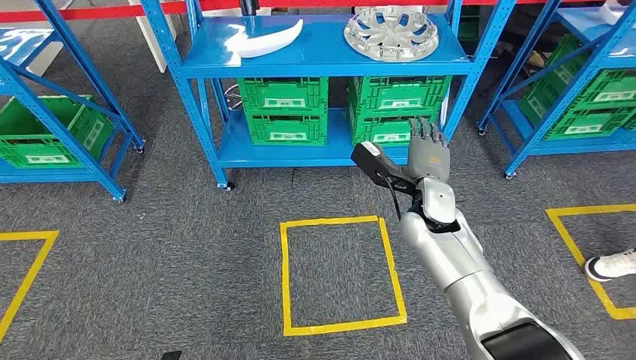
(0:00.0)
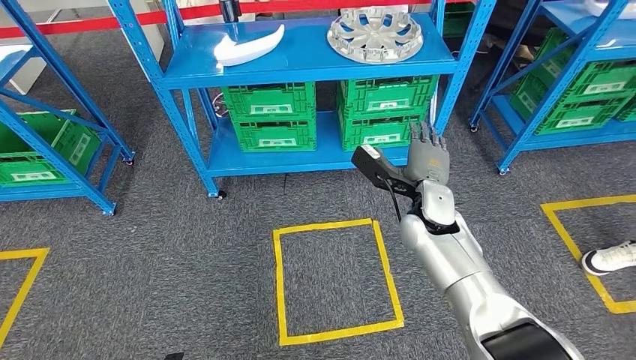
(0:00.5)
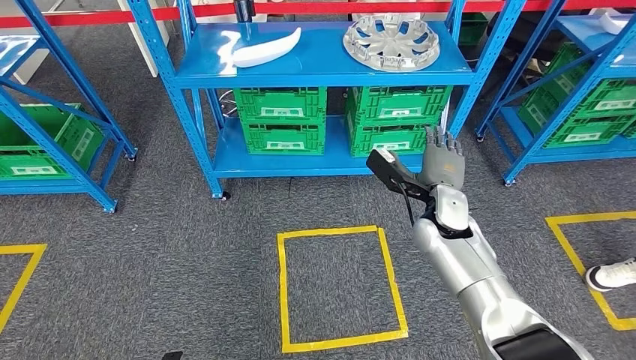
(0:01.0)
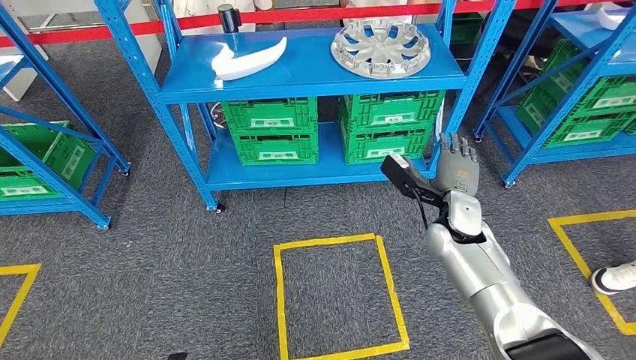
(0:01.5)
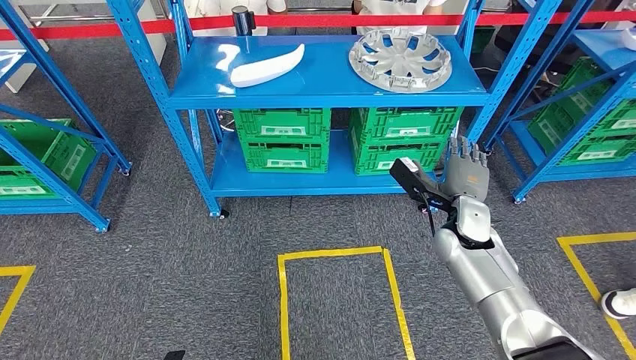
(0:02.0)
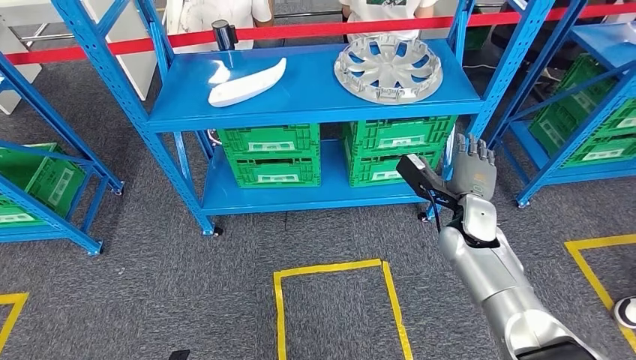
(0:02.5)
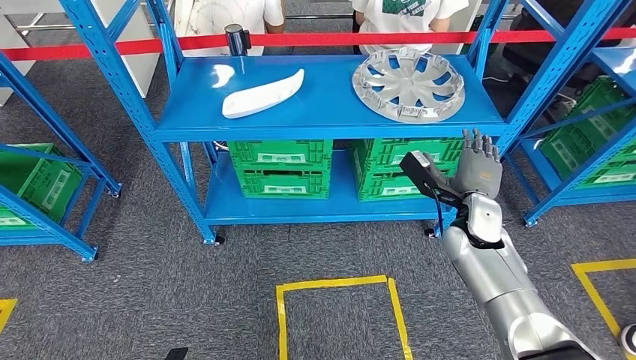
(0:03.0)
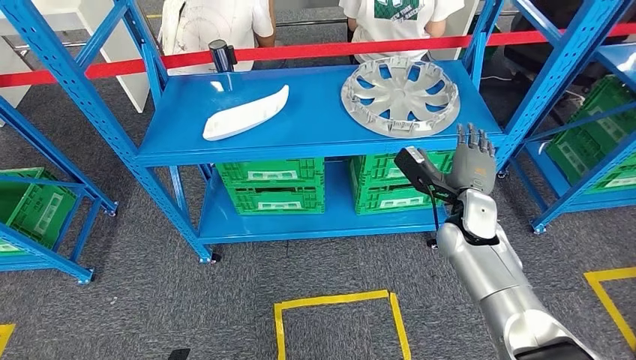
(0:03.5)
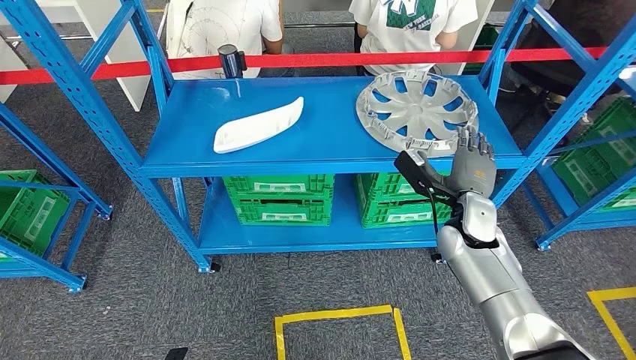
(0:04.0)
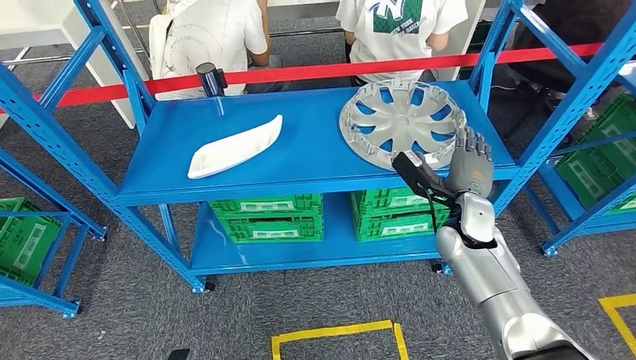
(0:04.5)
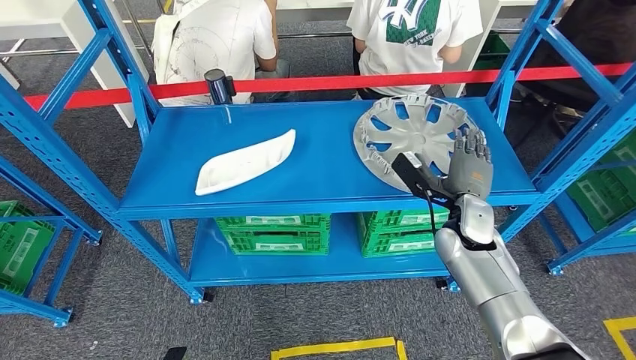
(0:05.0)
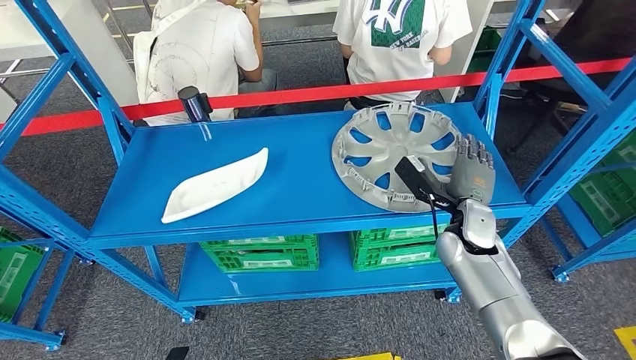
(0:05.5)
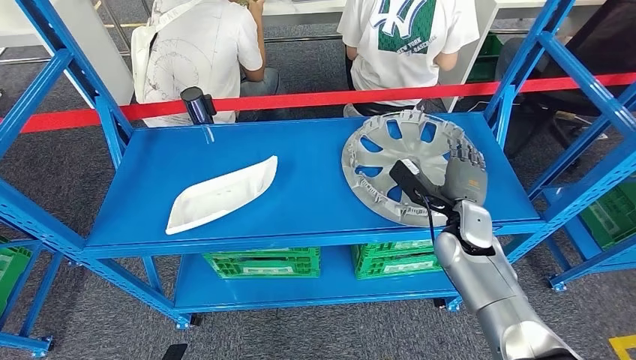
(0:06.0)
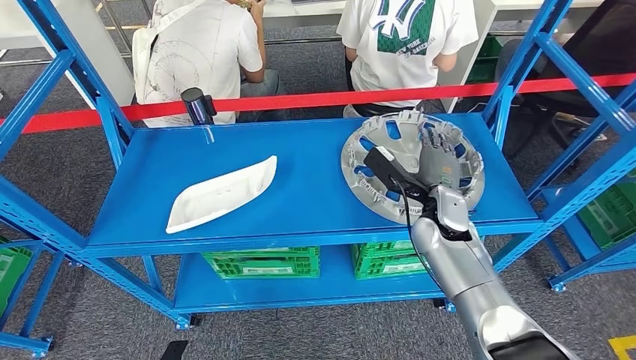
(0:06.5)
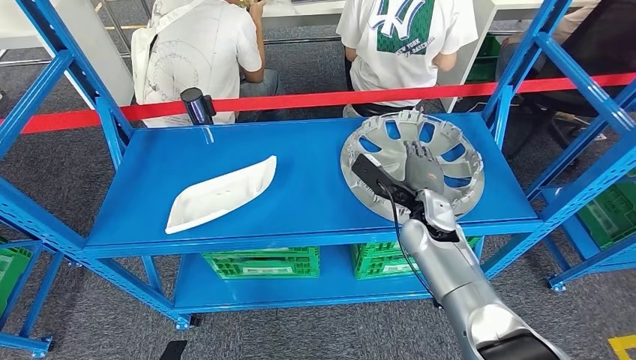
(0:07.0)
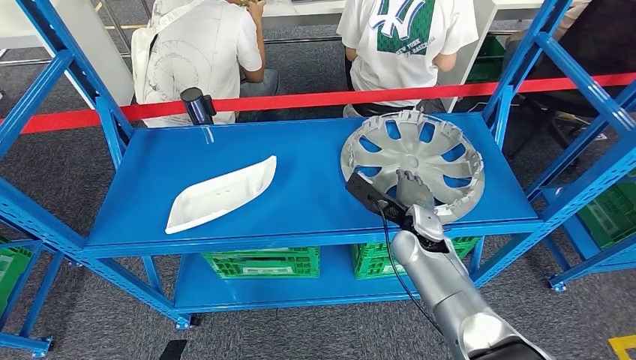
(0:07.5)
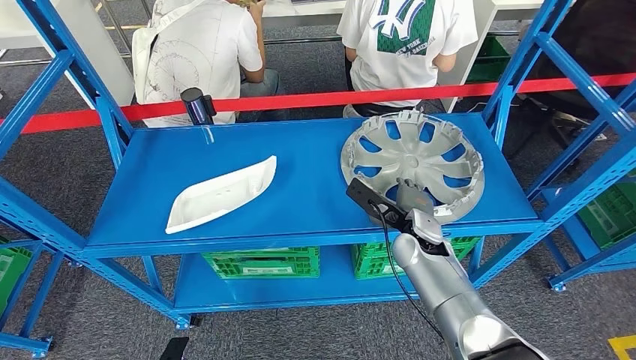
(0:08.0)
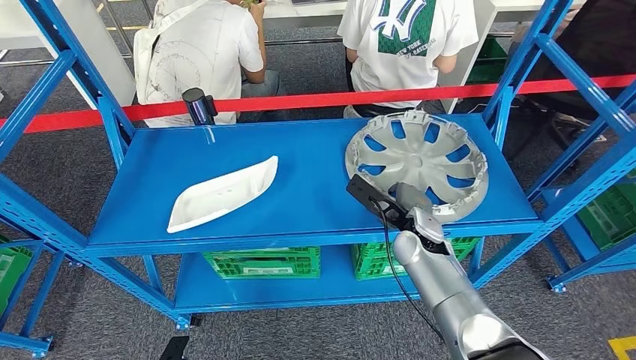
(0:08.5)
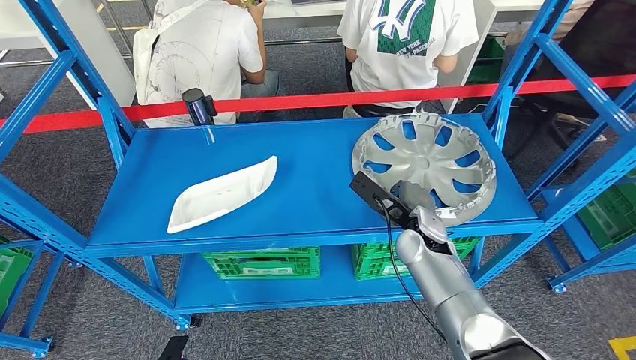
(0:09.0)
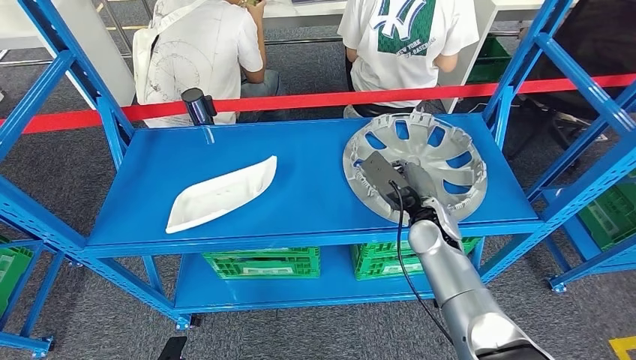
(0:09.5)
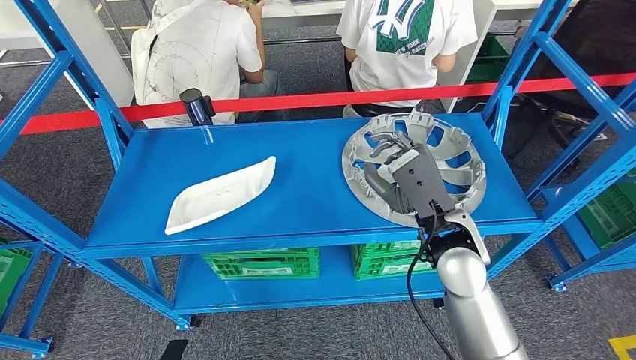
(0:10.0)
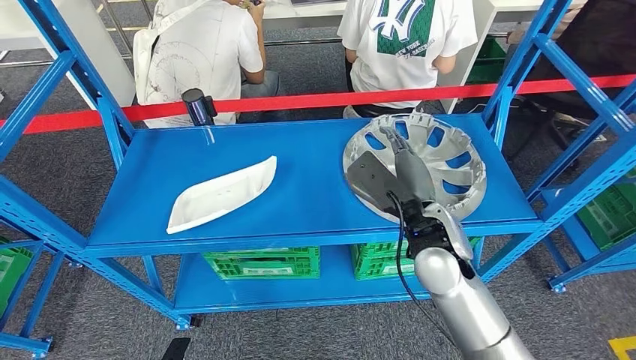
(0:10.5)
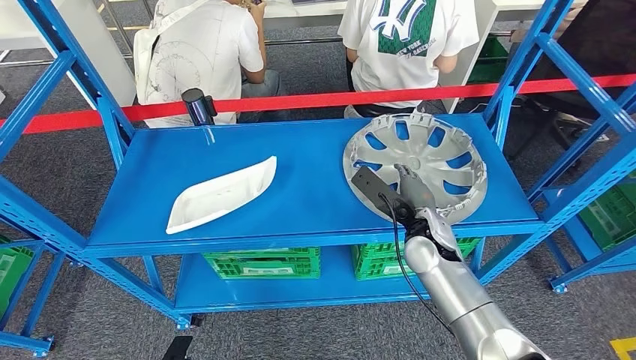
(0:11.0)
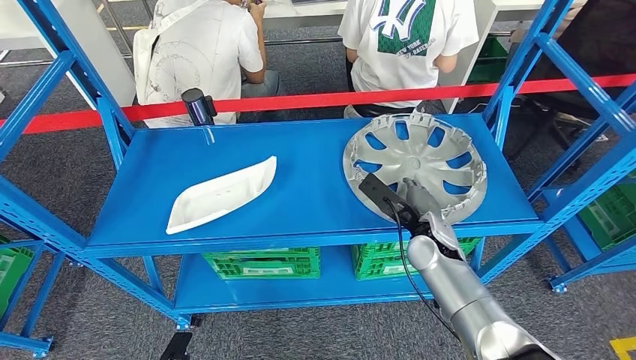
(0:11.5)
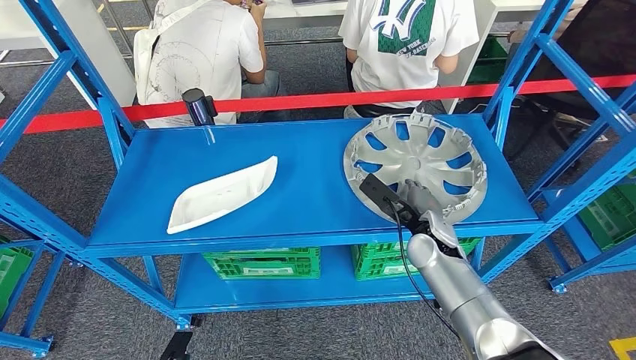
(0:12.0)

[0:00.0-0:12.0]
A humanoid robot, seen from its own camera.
0:06.0 to 0:08.0: The right hand is displaced to the left by roughly 10 cm.
0:08.0 to 0:10.0: The right hand shifts roughly 10 cm upward.
0:10.0 to 0:12.0: The right hand heads downward, covering about 10 cm.

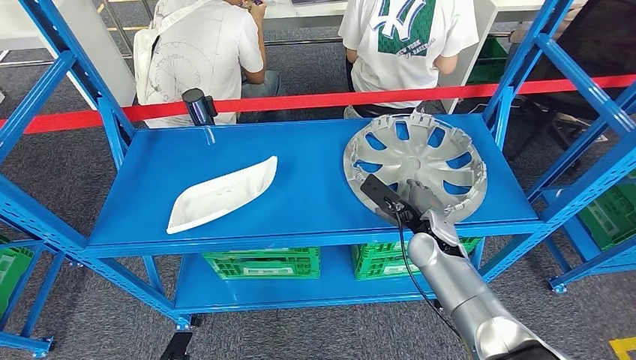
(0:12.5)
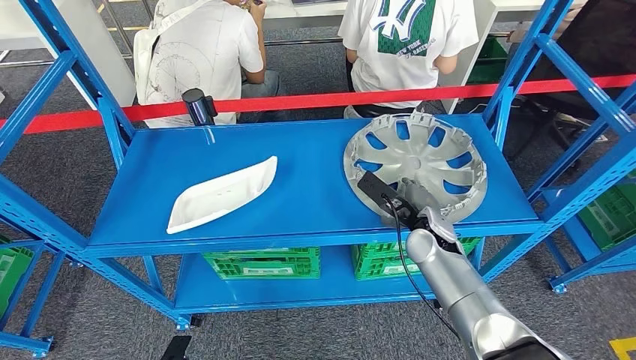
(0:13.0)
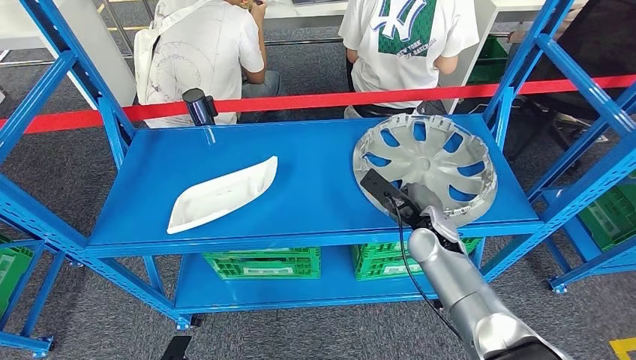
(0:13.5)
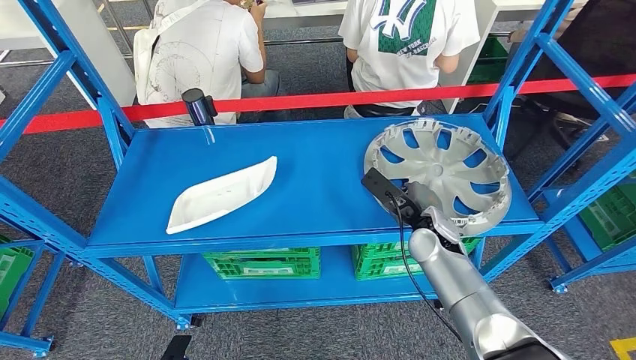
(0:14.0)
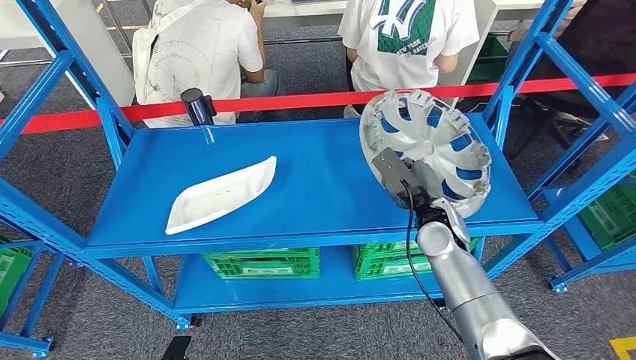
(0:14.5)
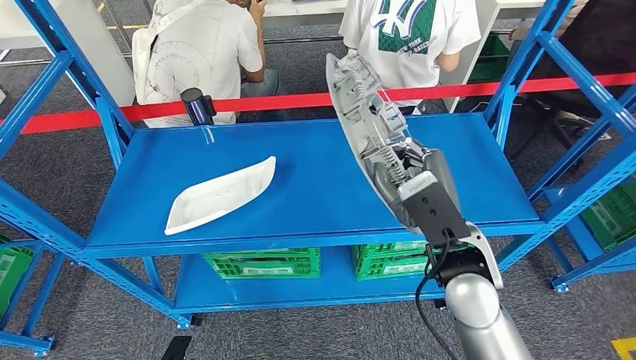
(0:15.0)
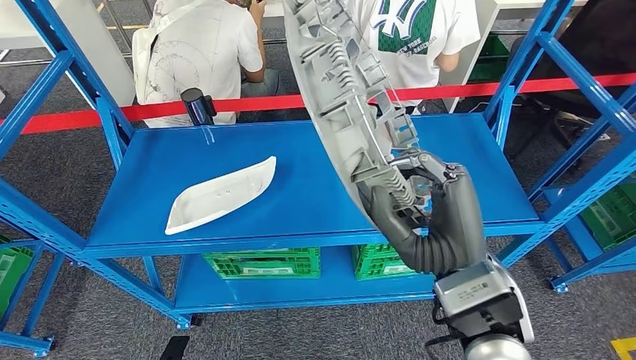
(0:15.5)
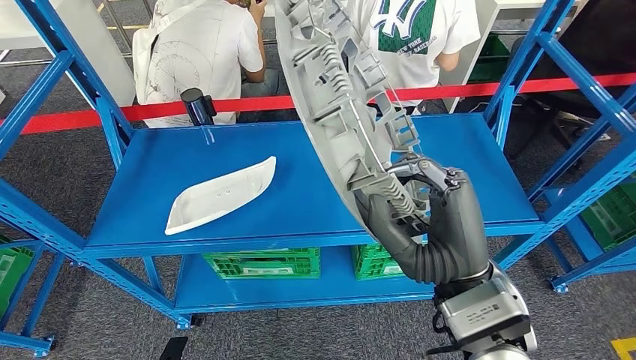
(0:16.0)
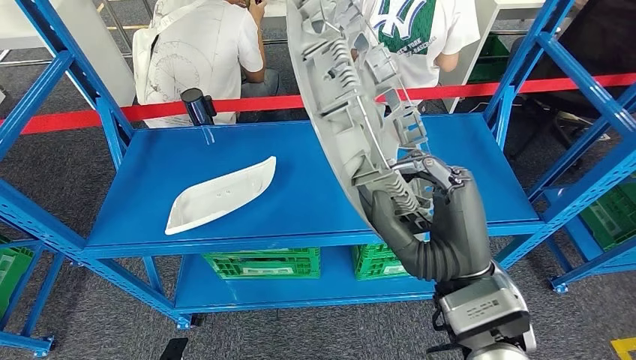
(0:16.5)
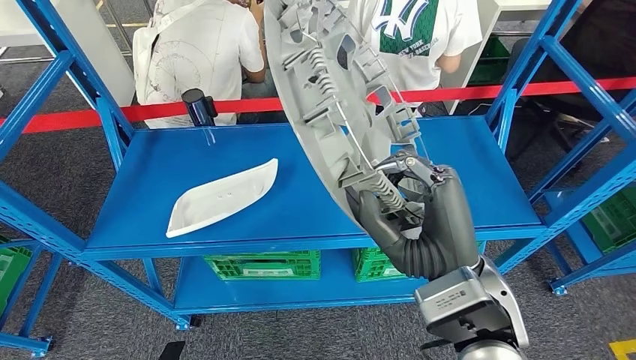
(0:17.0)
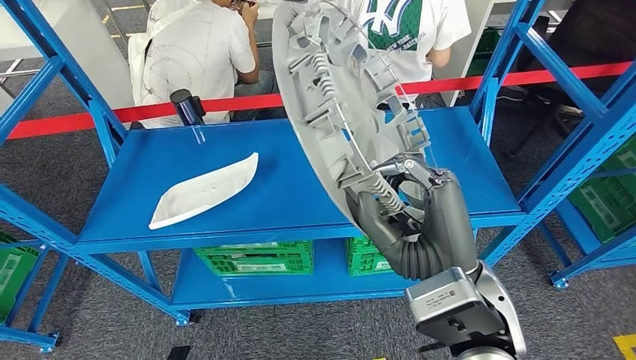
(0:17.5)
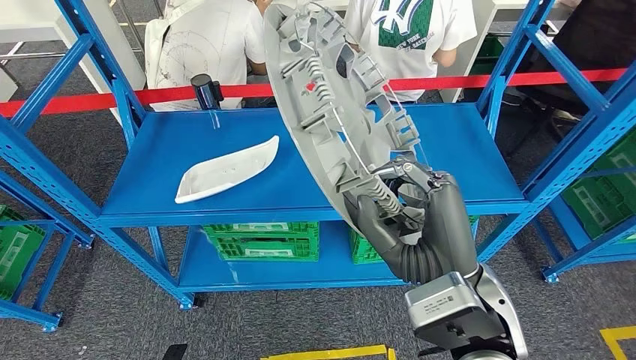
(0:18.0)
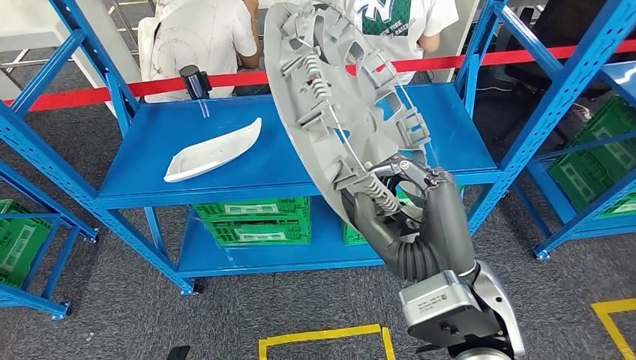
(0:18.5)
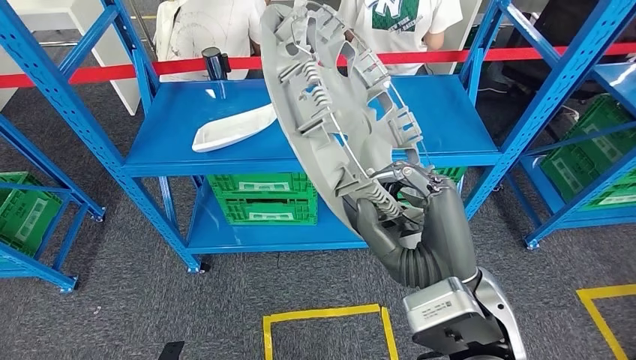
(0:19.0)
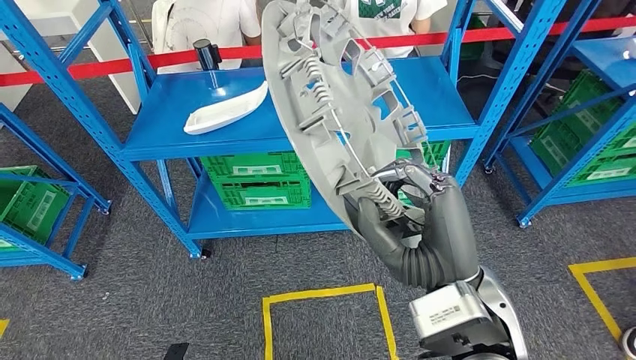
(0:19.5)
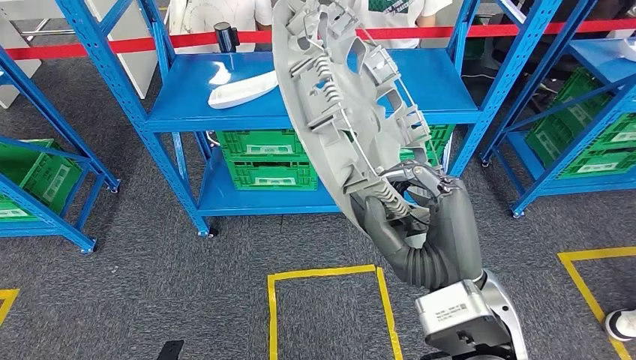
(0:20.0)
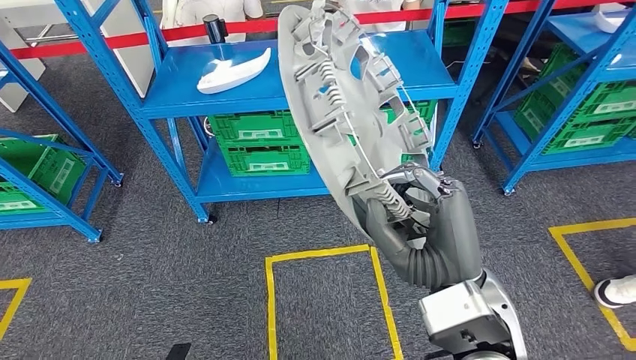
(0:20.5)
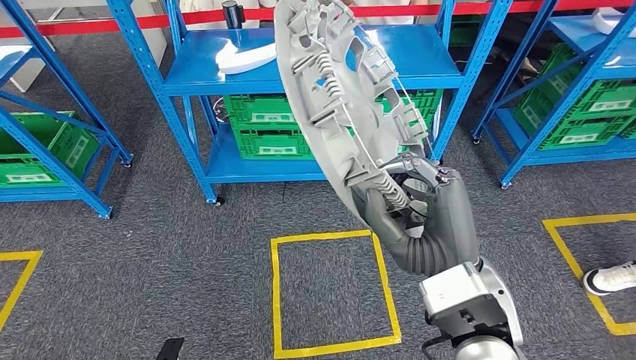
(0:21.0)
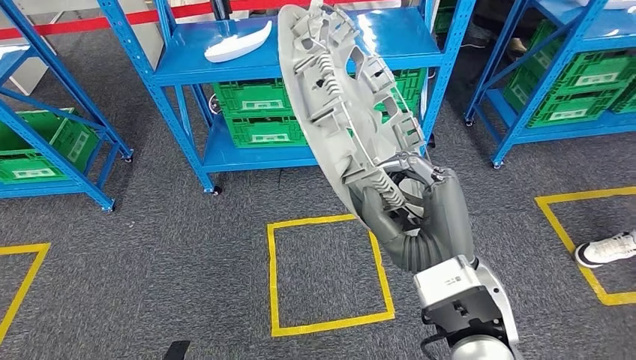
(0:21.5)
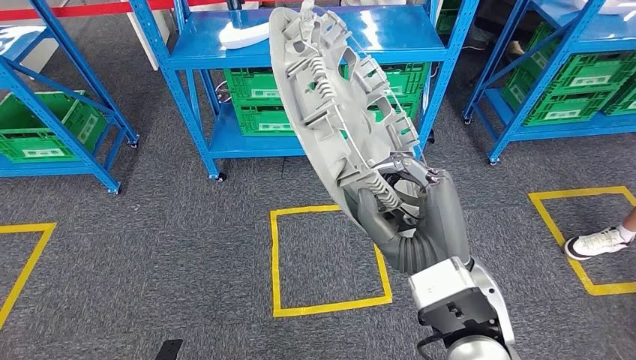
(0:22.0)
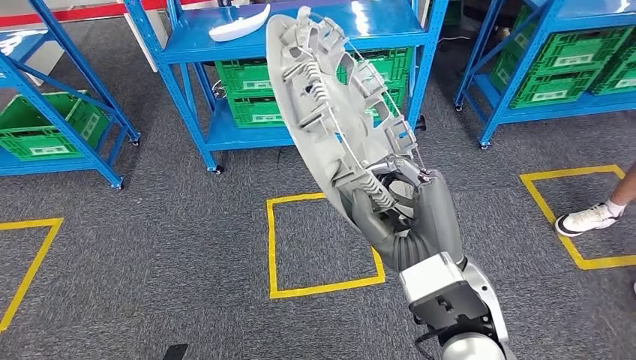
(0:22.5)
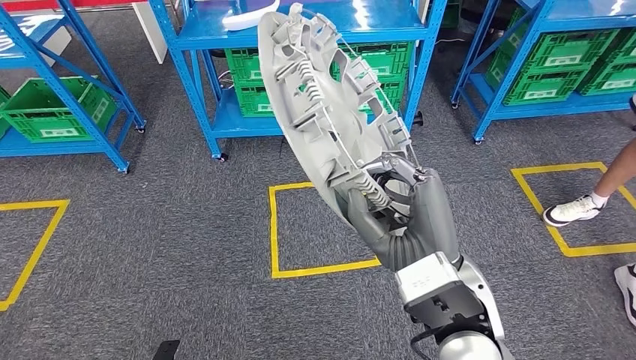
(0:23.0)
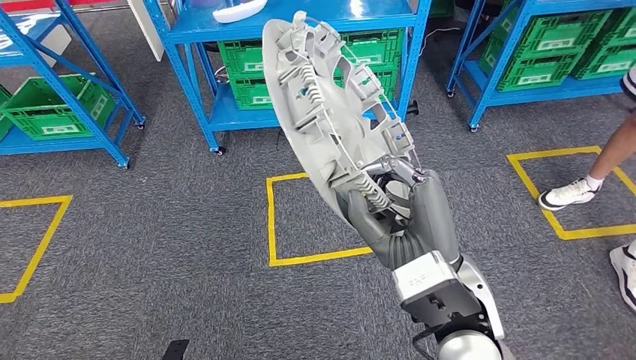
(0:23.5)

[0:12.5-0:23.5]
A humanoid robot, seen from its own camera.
Step, 0:12.5 to 0:16.0: Pick up the large material from the shelf.
0:14.5 to 0:16.0: The right hand travels upward, to the left and backward by roughly 20 cm.
